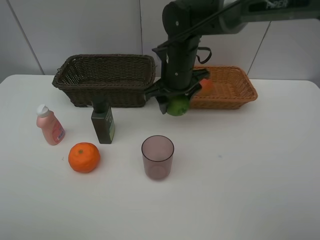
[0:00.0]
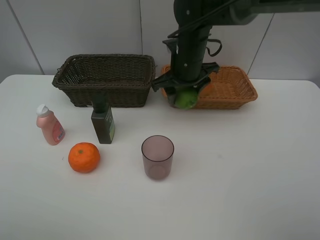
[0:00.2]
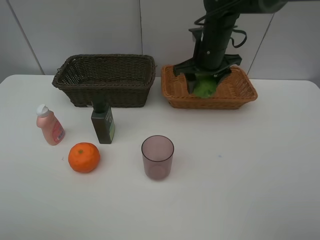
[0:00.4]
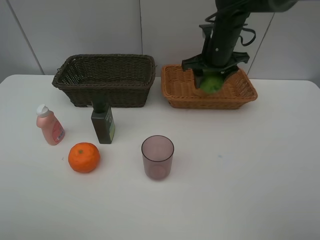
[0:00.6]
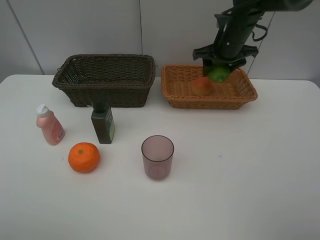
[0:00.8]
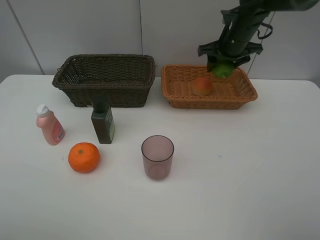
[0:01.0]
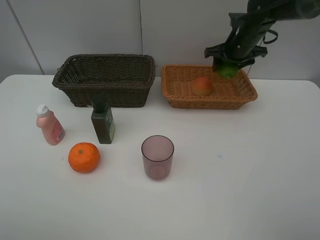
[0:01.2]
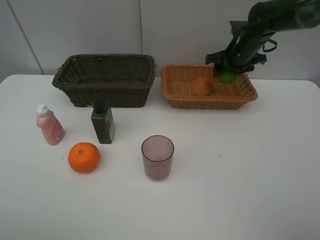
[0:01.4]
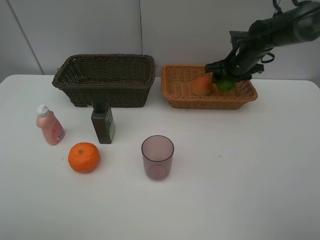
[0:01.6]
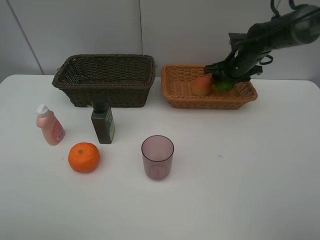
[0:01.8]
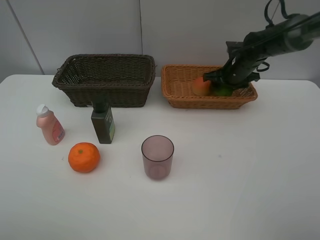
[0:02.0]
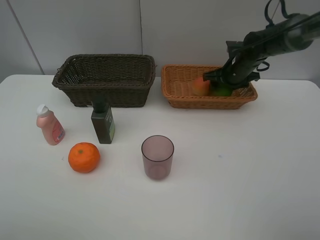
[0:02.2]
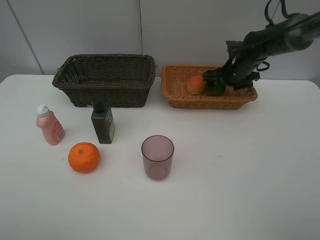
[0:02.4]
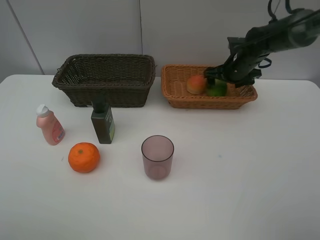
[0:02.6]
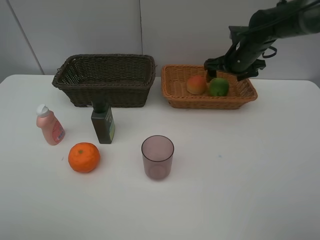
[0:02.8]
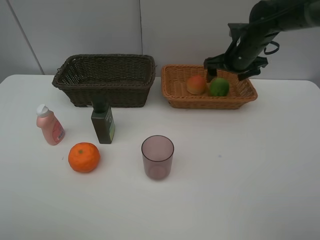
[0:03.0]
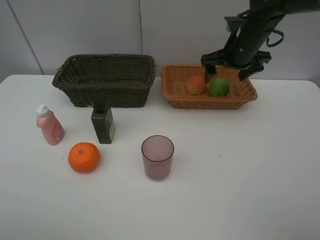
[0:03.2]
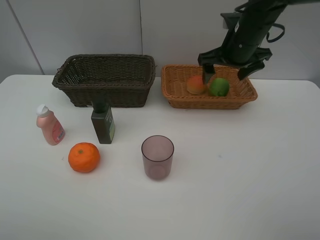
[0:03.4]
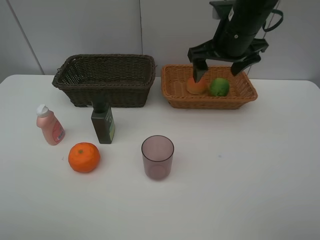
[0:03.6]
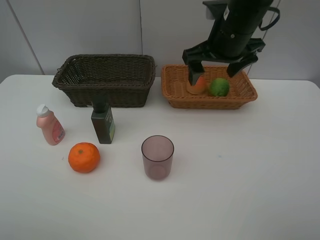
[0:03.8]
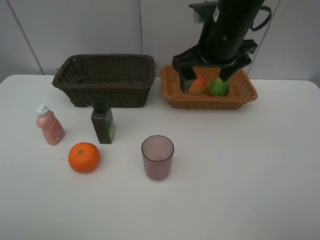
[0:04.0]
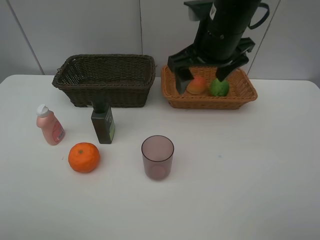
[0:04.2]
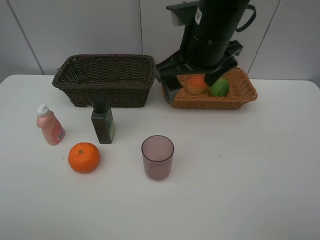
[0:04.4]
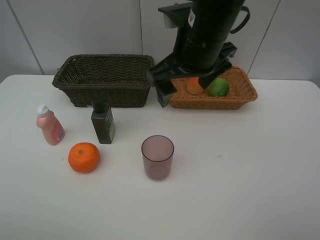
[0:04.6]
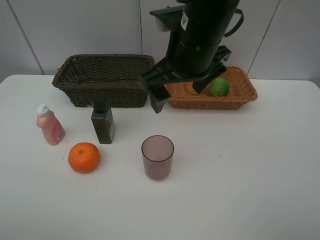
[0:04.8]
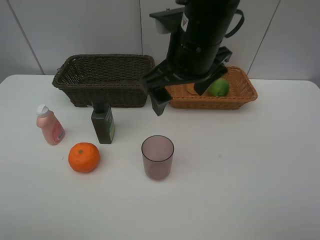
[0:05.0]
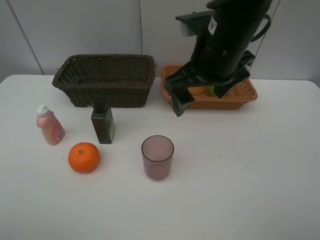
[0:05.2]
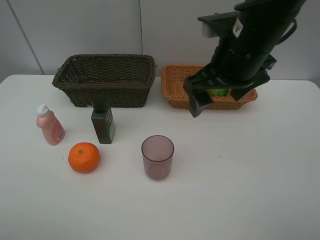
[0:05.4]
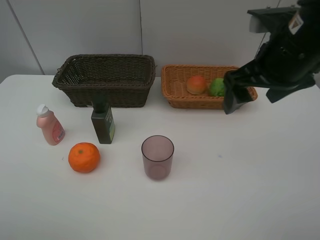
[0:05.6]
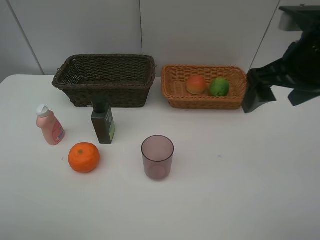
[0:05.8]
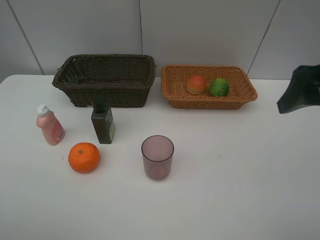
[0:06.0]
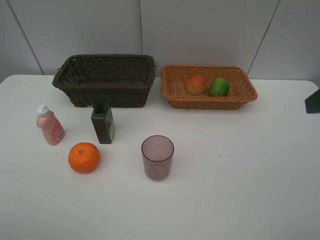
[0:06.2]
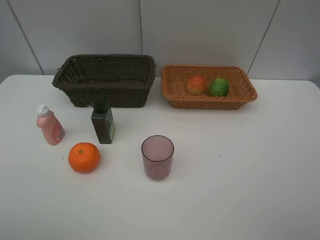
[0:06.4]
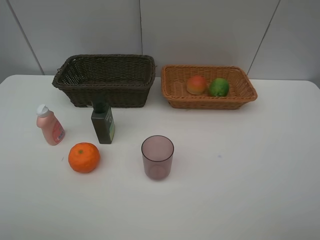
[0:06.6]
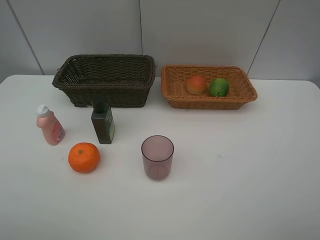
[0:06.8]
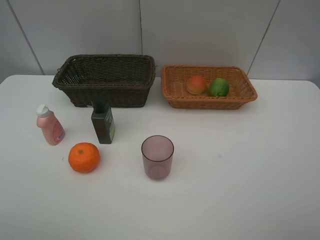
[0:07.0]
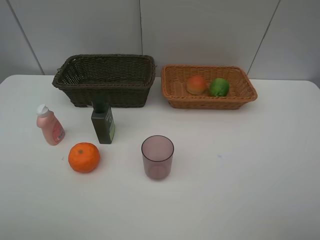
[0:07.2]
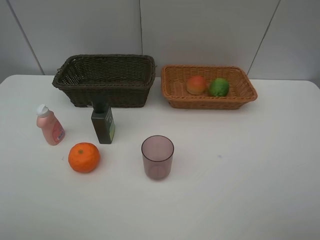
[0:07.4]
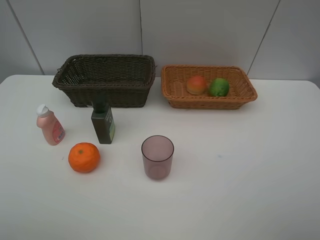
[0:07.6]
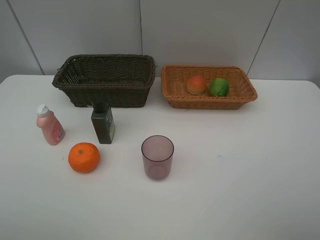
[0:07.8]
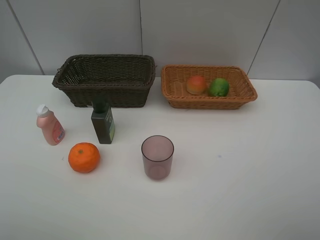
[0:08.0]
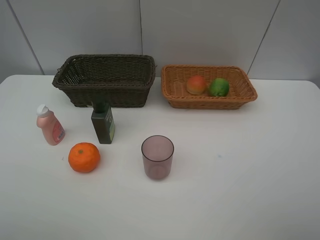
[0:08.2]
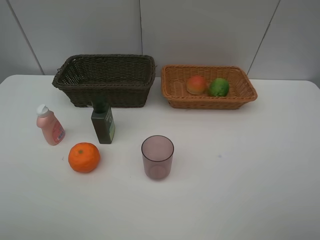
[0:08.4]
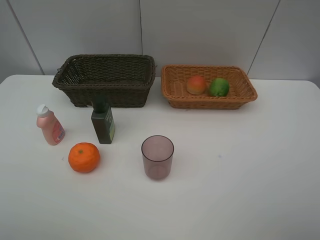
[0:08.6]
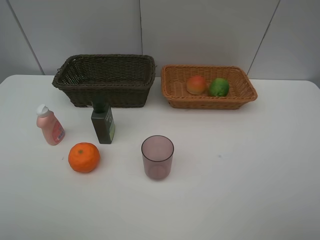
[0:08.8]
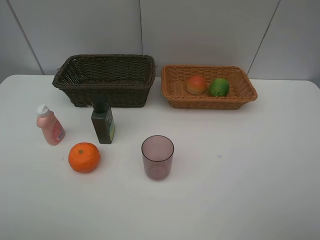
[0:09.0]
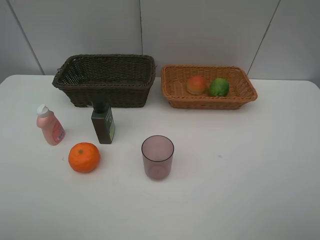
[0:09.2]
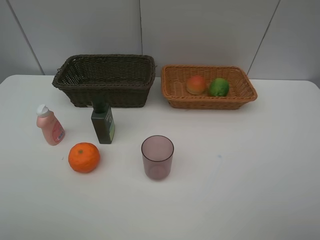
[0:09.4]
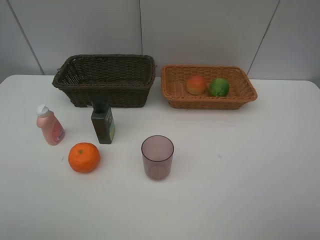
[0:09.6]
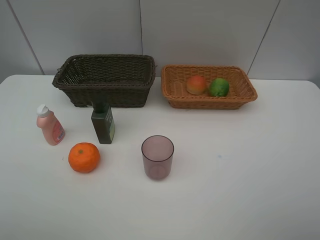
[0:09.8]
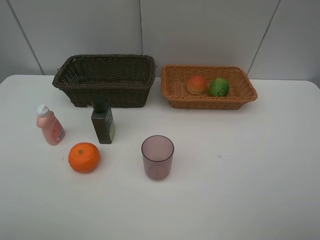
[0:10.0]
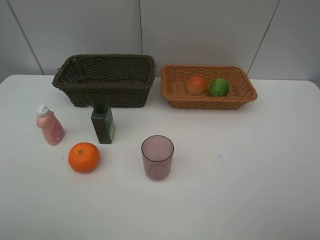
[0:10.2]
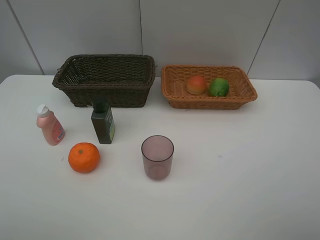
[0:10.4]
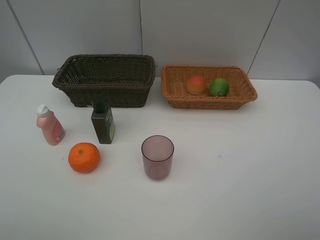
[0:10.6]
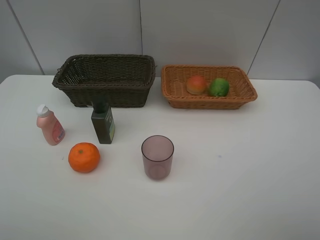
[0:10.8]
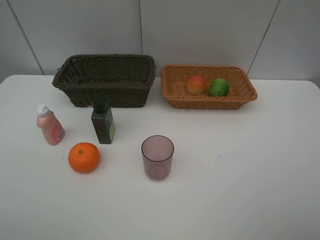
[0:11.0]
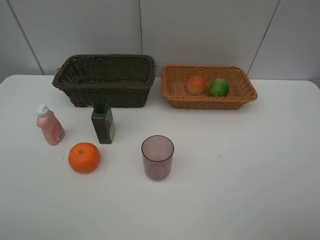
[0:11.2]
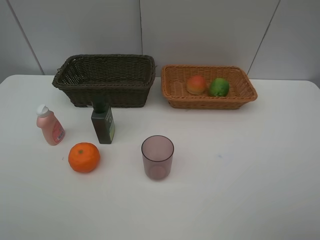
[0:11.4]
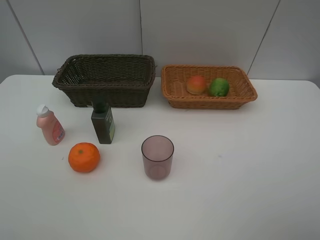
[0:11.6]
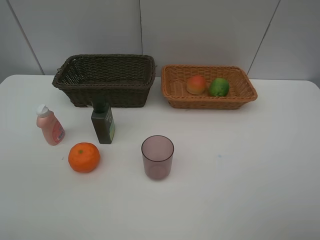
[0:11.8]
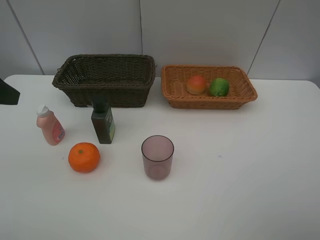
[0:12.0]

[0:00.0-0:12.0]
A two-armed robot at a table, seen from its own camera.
Task of the whole recording: place multiple objects separately in different baskets.
0:00.0 to 0:01.6: The right gripper travels to the right and forward by some 20 cm.
0:01.6 to 0:03.0: The right gripper moves roughly 5 cm, and opens.
0:03.0 to 0:04.4: The right gripper moves backward, to the left and upward, roughly 20 cm.
0:04.4 to 0:06.0: The right gripper goes some 25 cm to the right and backward.
0:06.0 to 0:07.6: The right gripper shifts roughly 15 cm backward.

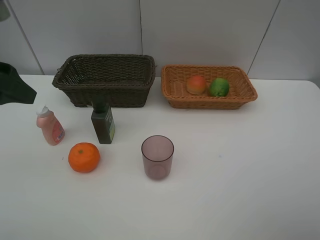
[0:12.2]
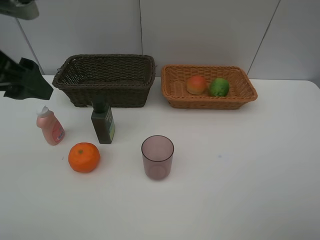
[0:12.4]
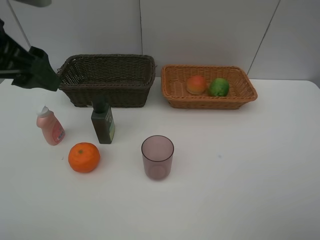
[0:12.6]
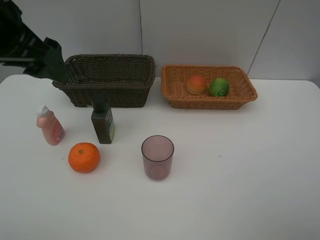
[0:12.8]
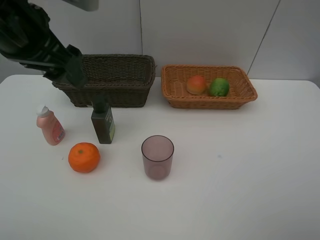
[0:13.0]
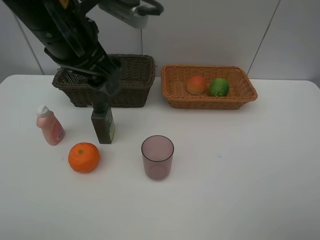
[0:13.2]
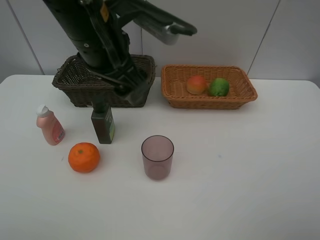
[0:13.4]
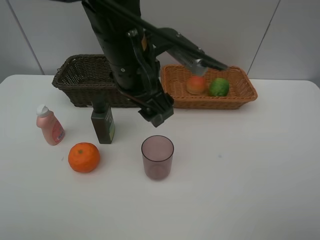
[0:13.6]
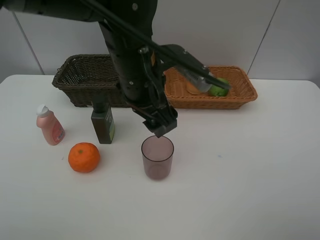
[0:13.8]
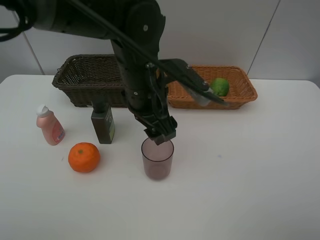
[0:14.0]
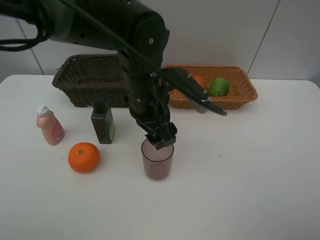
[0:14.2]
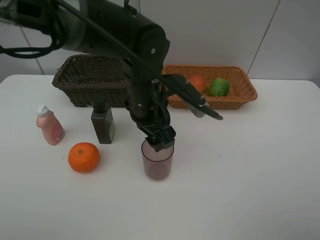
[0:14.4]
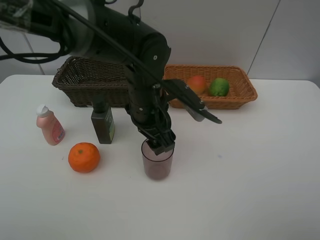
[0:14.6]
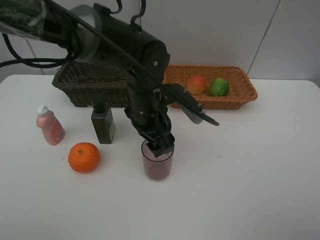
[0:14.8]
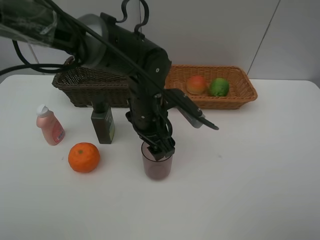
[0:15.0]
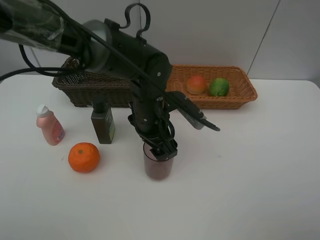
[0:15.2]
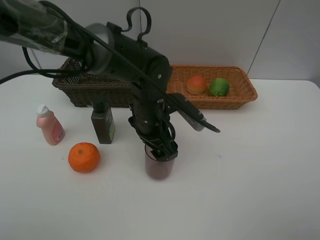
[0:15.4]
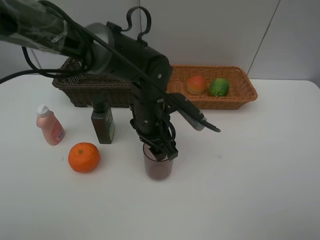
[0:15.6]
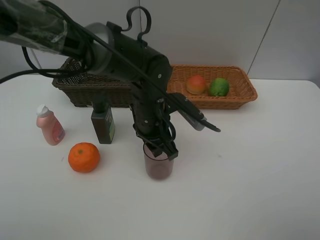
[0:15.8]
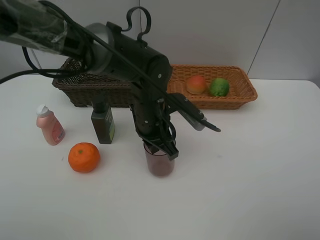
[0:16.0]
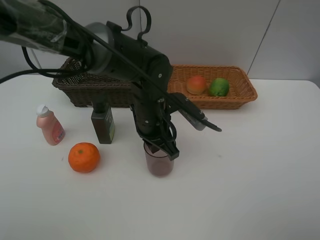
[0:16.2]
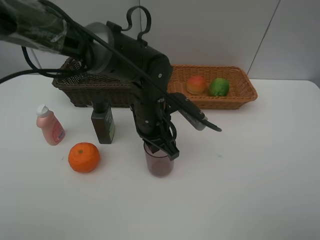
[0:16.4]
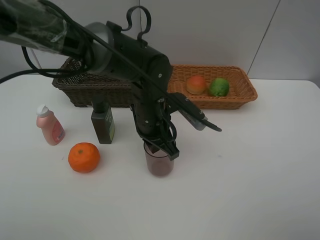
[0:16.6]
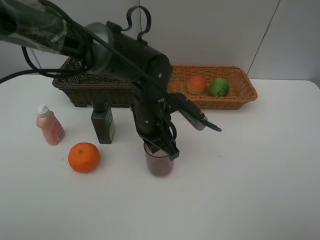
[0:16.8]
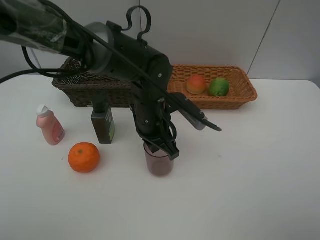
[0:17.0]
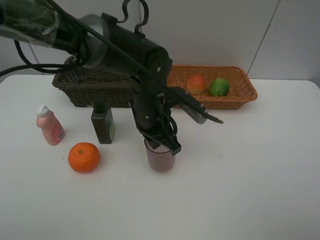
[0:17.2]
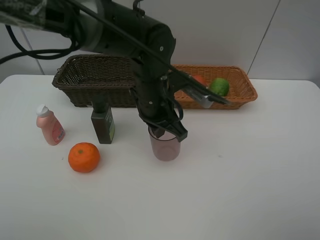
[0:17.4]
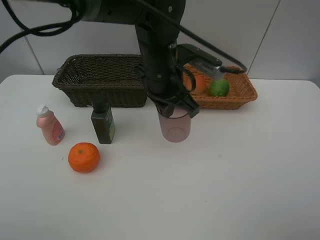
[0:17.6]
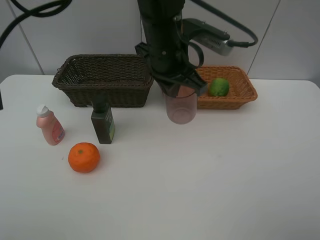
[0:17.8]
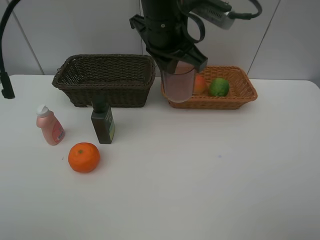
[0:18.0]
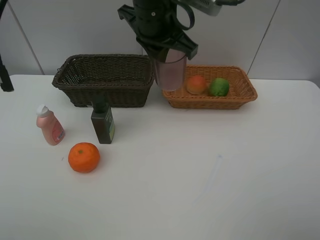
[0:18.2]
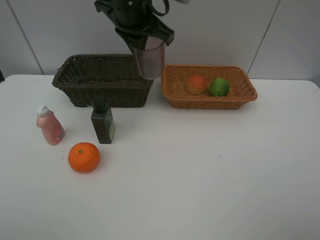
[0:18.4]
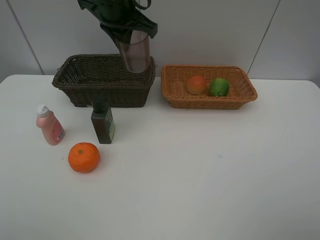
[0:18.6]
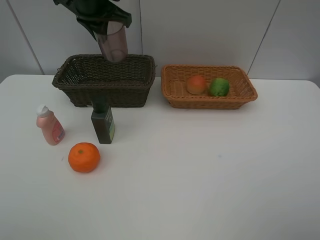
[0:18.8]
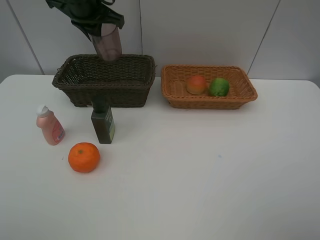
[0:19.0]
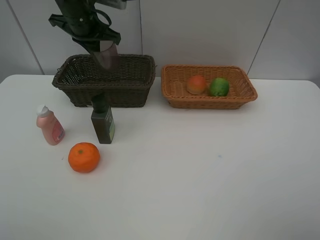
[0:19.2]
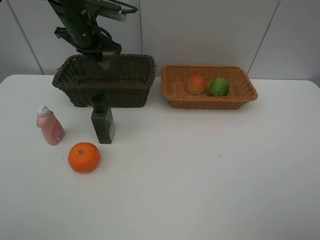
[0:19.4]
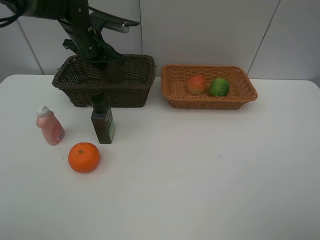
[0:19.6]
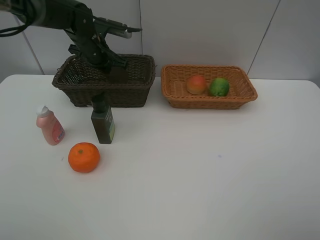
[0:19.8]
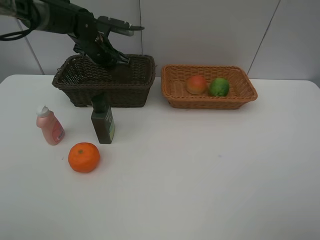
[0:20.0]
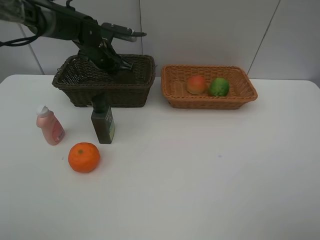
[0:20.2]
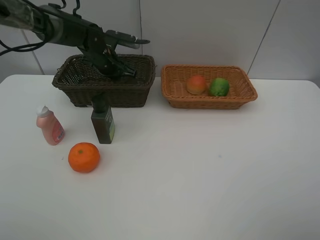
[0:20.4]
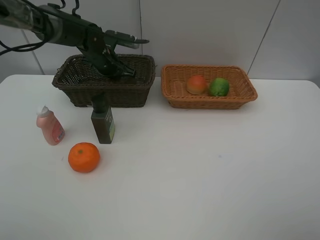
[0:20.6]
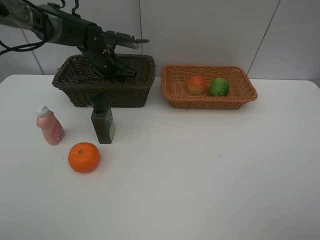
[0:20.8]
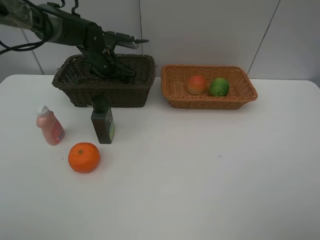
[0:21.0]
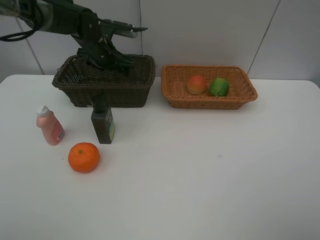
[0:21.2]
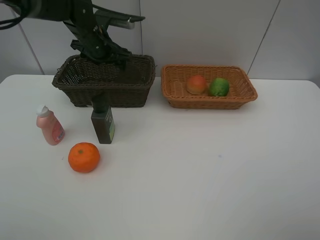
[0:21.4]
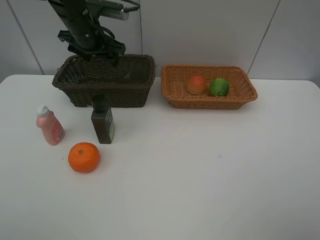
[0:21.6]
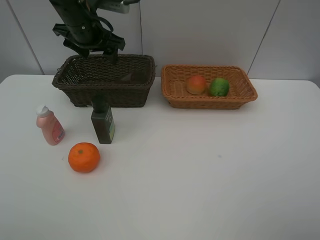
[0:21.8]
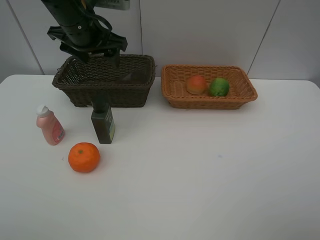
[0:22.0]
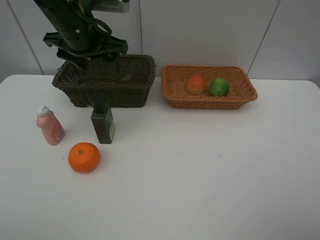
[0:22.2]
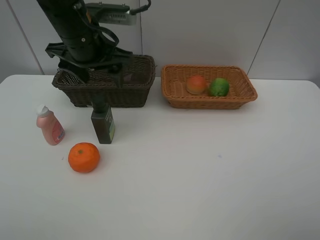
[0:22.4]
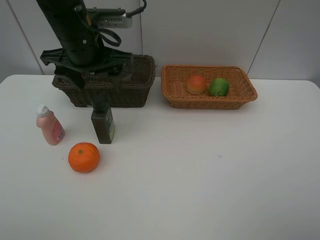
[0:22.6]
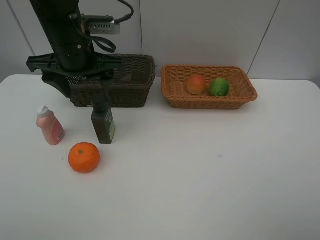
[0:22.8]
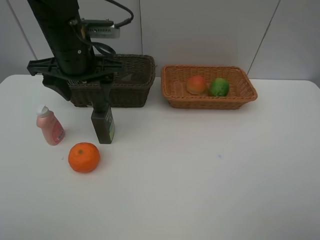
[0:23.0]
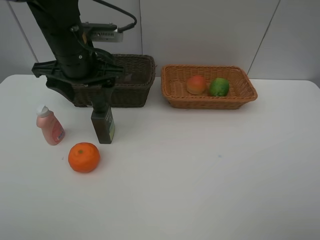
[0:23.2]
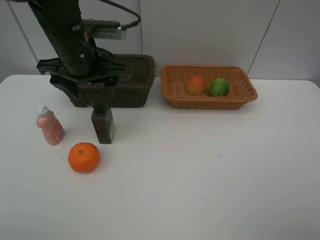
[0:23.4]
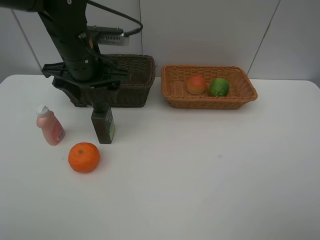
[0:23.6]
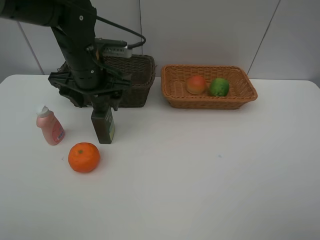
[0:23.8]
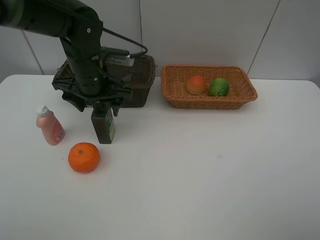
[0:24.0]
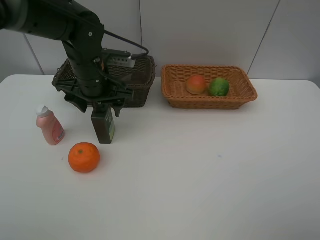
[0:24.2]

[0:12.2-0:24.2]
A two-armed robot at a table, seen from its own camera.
Task of the whole recording: place multiple objects separately in different baskets.
0:12.2 to 0:13.8: The left gripper goes some 25 cm to the right.
0:13.8 to 0:15.2: The left gripper heads downward, covering about 10 cm.
0:15.2 to 0:16.6: The left gripper closes.
0:16.6 to 0:18.2: The left gripper heads upward, covering approximately 20 cm.
0:18.2 to 0:19.8: The left gripper is displaced to the left, downward and forward by some 25 cm.
0:19.8 to 0:21.2: The left gripper opens up.
0:21.2 to 0:22.6: The left gripper moves backward and upward, approximately 15 cm.
0:22.6 to 0:24.2: The left gripper moves downward, some 10 cm.
